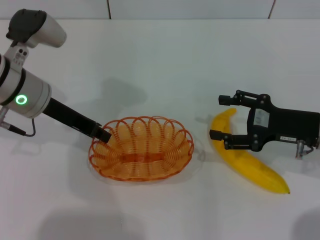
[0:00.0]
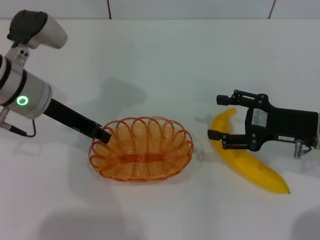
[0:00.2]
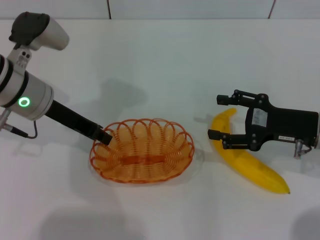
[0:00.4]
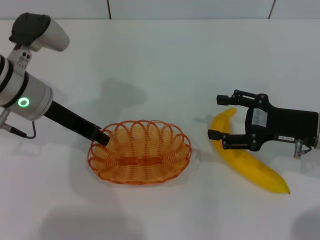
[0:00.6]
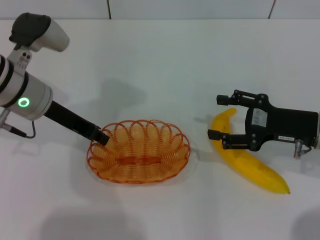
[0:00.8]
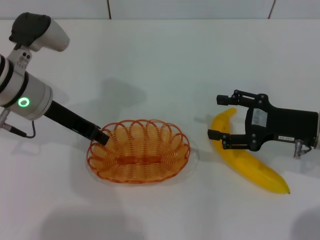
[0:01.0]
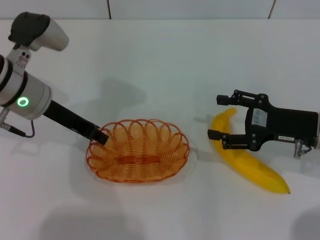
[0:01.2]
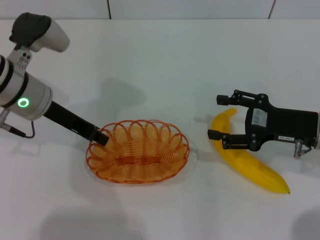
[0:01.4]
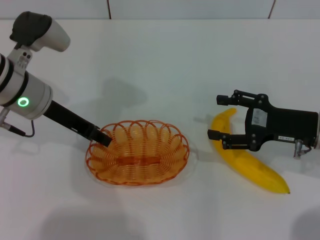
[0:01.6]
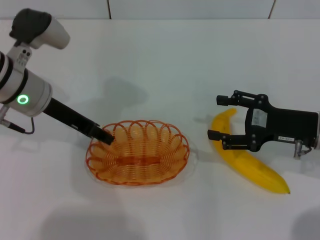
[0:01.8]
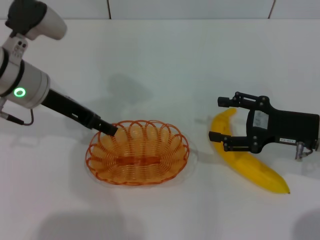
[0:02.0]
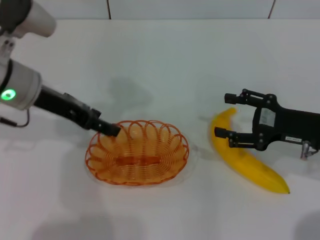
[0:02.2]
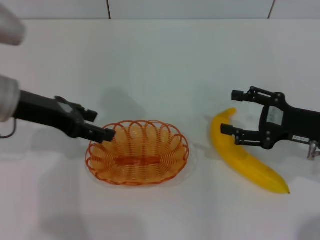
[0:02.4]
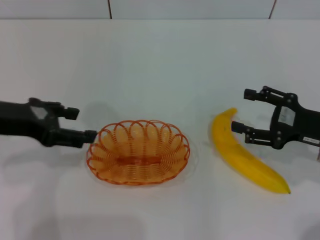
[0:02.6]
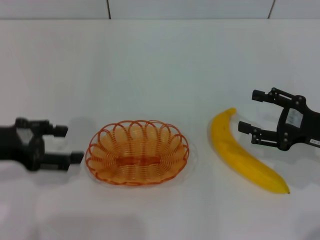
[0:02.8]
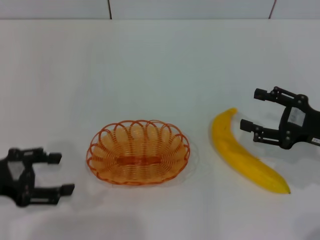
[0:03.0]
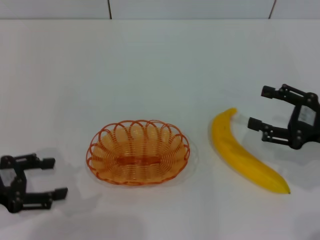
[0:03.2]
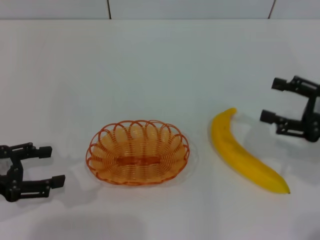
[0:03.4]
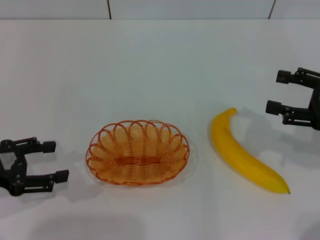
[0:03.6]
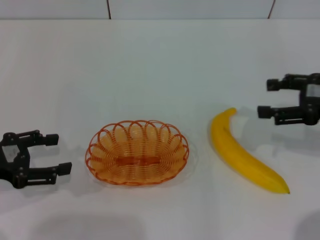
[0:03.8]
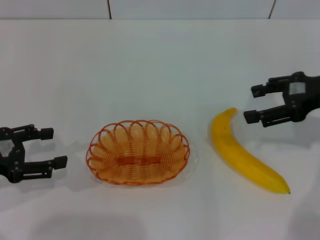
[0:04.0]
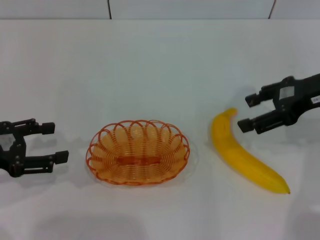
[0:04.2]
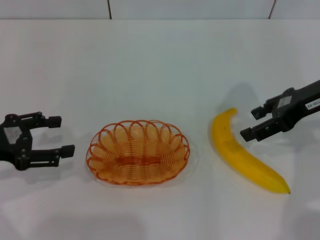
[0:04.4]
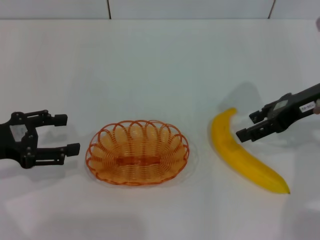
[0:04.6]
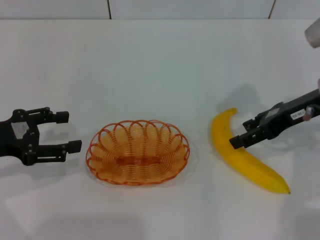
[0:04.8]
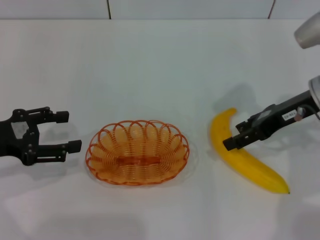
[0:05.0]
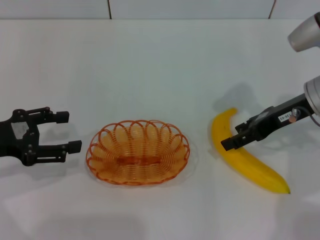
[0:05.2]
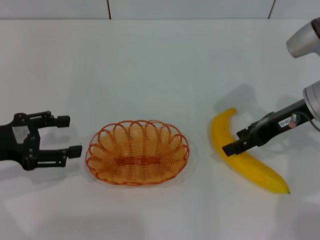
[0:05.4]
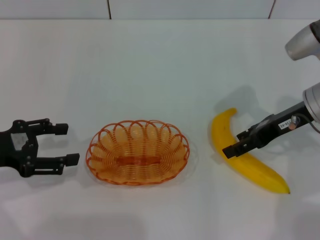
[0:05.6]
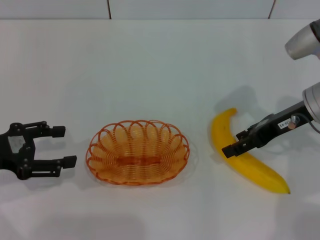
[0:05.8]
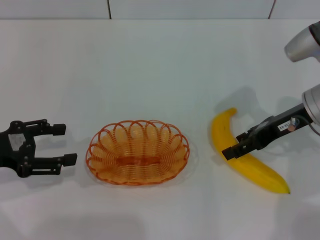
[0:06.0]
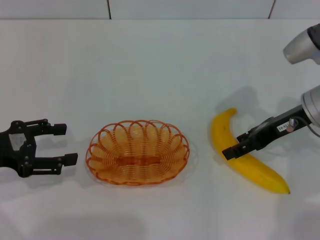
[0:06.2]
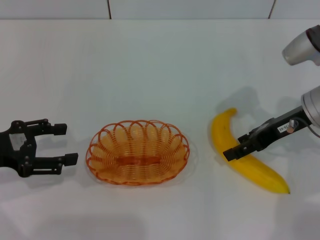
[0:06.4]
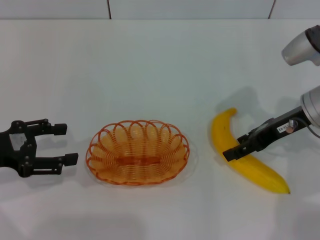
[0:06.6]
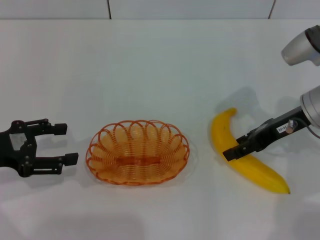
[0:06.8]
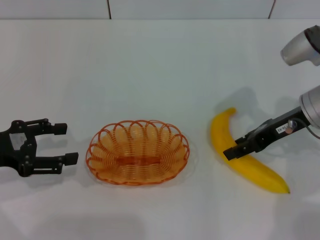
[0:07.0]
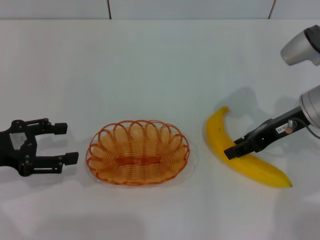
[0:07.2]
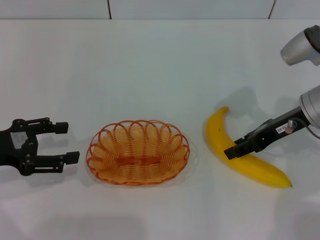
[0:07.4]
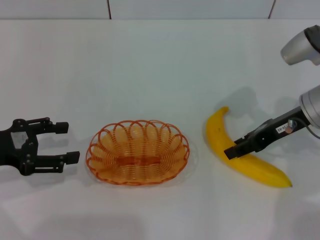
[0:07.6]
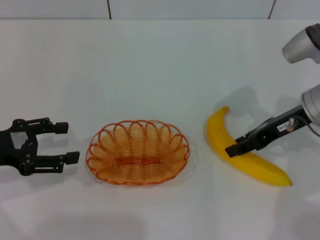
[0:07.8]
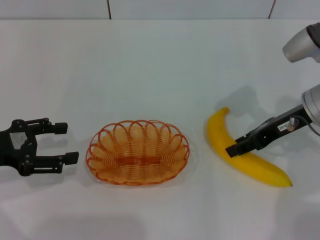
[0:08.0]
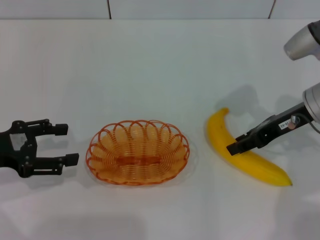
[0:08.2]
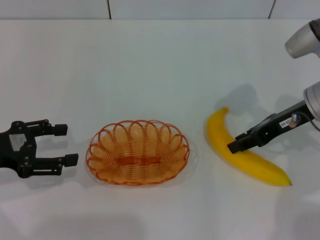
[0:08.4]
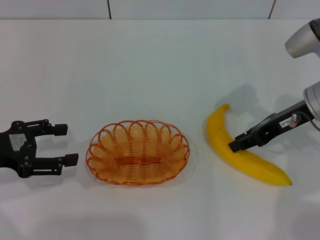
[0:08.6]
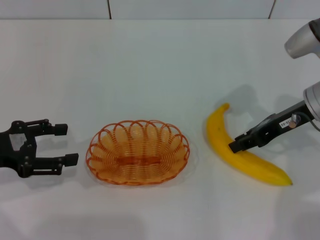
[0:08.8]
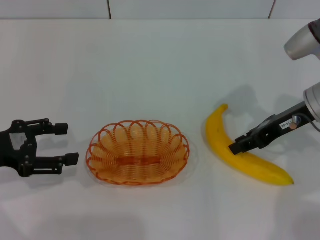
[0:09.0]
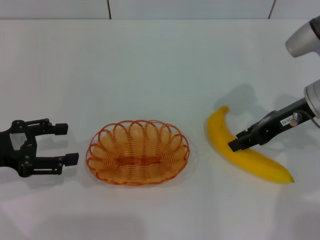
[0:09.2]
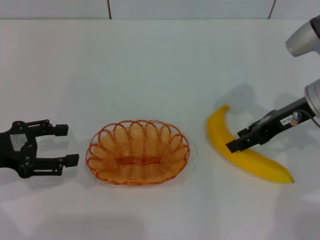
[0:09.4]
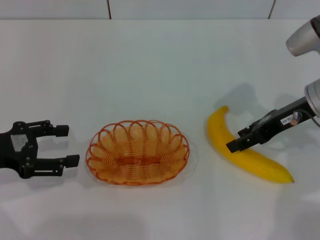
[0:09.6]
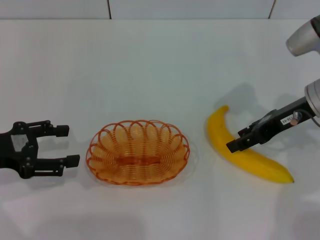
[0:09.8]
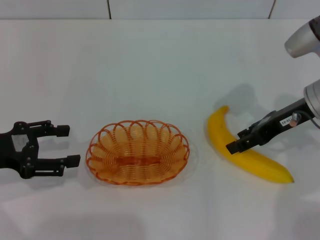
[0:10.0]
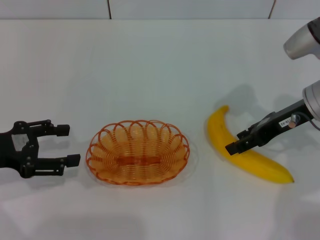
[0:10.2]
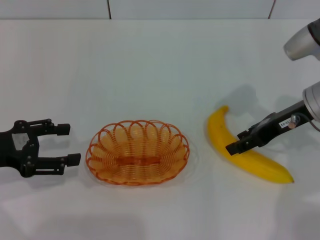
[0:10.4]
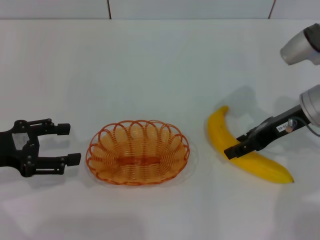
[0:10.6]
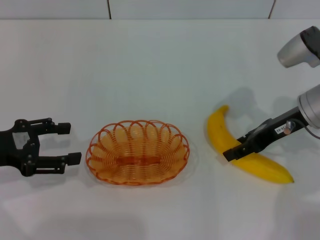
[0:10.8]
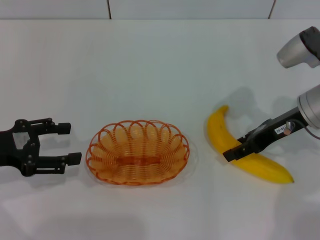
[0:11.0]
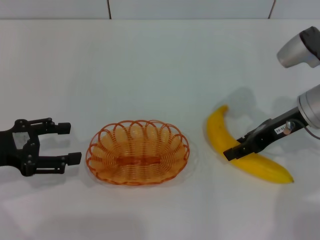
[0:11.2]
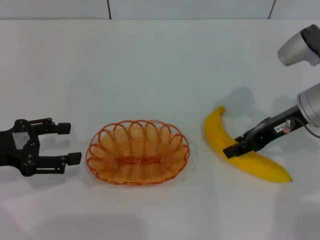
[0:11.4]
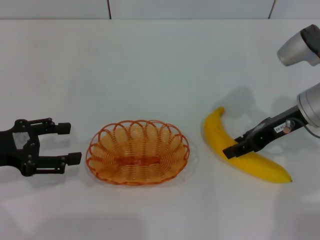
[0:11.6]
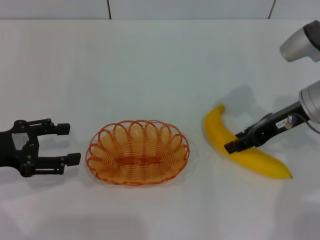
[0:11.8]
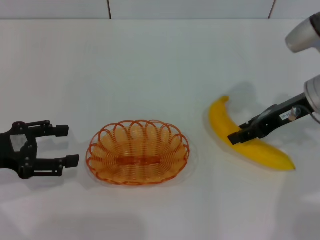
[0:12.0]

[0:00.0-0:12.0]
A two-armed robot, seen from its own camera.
Step, 0:00.0 to 0:02.4: Place the basket in the center of view with the left gripper.
0:00.0 to 0:01.6: Both grippers stay about where they are.
0:01.6 to 0:03.0: The right gripper moves about 5 cm. The left gripper moves backward and to the left, about 15 cm, and opens.
0:03.0 to 0:04.4: The right gripper moves upward and forward, roughly 15 cm.
0:04.4 to 0:06.0: The right gripper is displaced downward by roughly 5 cm.
0:06.0 to 0:07.6: The right gripper closes its fingers.
0:07.6 to 0:09.0: Neither gripper changes place.
0:09.0 to 0:10.4: The right gripper opens up.
0:10.4 to 0:12.0: Neither gripper changes place.

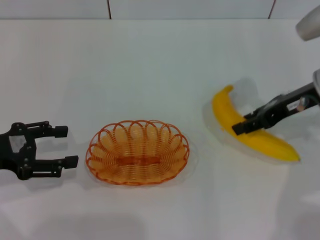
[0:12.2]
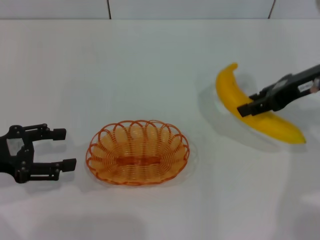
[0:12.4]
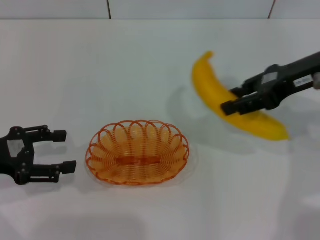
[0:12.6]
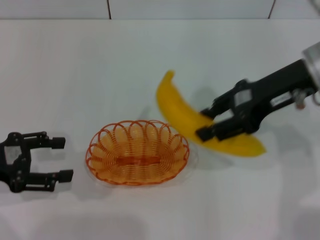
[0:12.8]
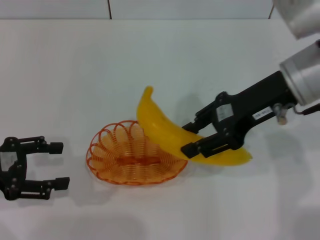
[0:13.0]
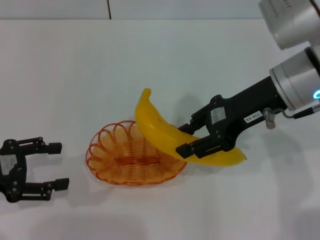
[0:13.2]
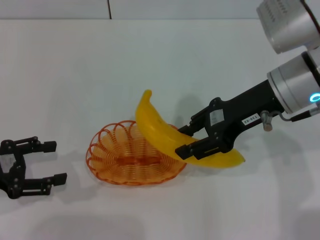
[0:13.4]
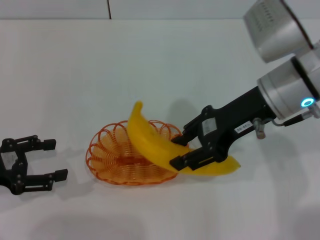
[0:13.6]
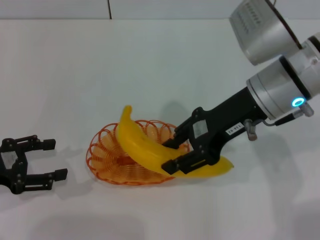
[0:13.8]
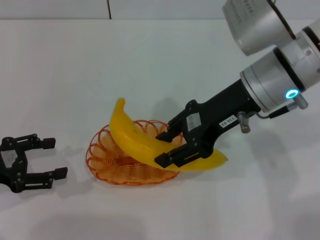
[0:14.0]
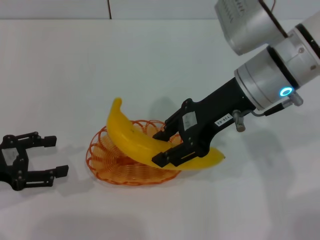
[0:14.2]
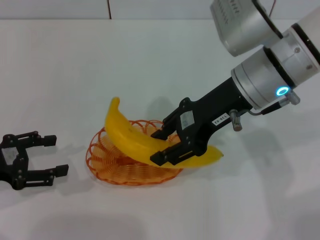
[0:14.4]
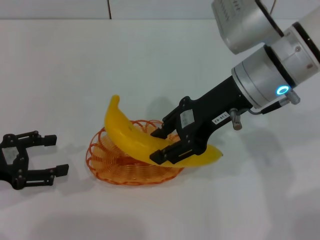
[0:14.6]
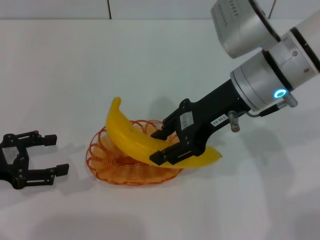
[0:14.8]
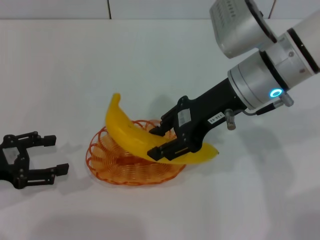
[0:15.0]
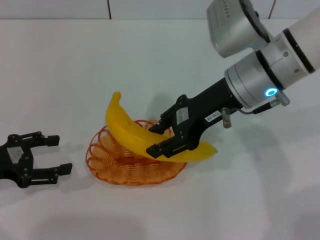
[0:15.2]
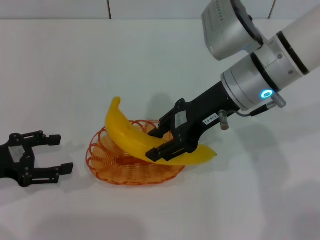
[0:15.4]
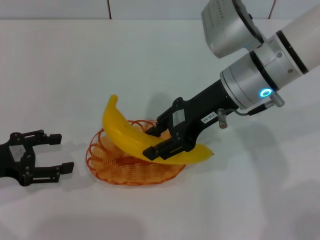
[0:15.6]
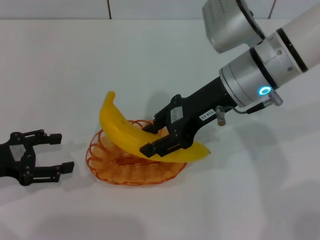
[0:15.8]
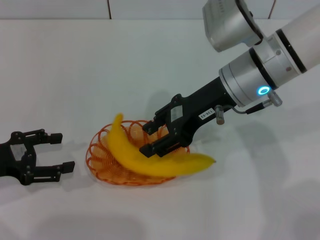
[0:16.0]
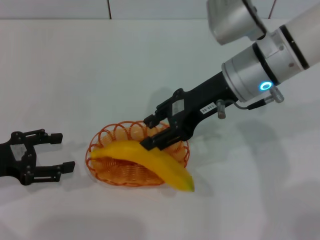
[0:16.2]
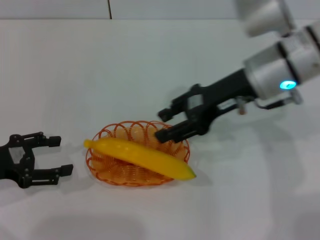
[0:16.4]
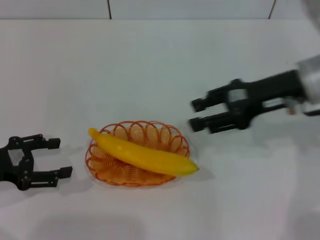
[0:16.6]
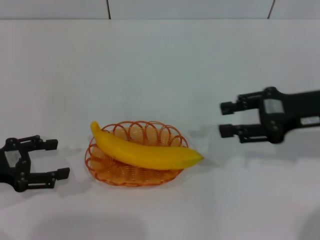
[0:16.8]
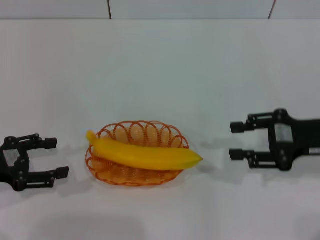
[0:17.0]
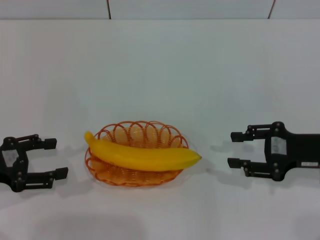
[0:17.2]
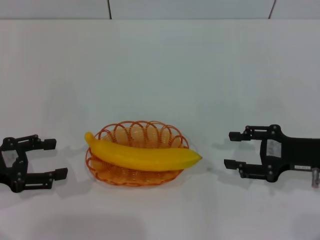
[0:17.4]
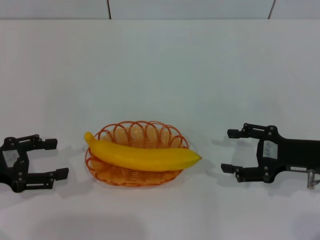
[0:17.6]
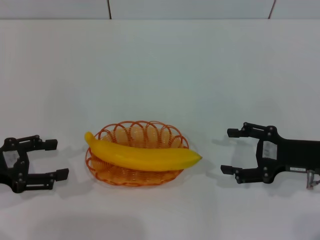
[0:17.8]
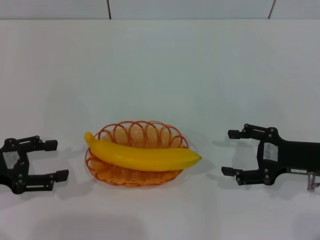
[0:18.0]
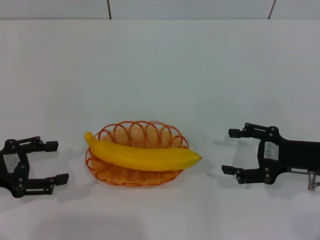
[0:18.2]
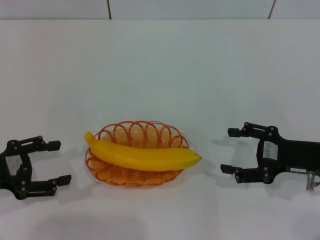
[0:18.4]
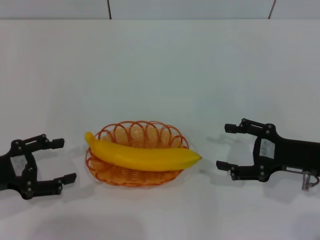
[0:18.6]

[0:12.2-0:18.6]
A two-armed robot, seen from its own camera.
Step, 0:12.4 to 0:16.4: Place the banana into the basket with the right gripper.
0:12.2 to 0:13.8: The right gripper heads to the left, covering approximately 10 cm.
0:15.4 to 0:17.0: The right gripper moves to the right and backward, about 20 cm.
0:17.0 to 0:18.6: The right gripper travels downward by roughly 5 cm, and opens its fingers.
